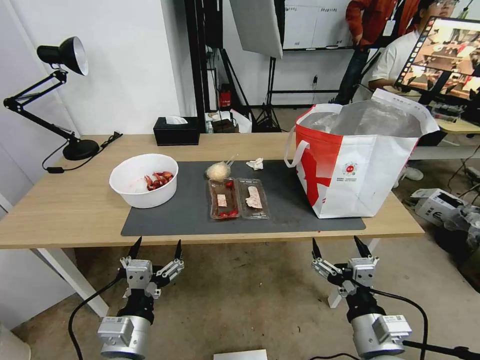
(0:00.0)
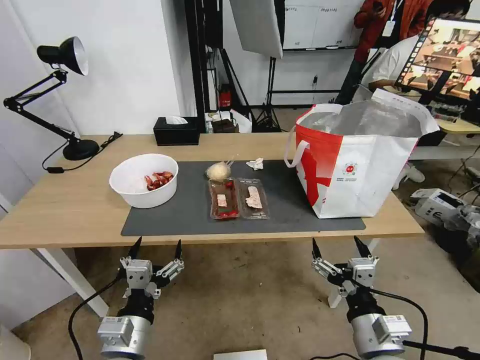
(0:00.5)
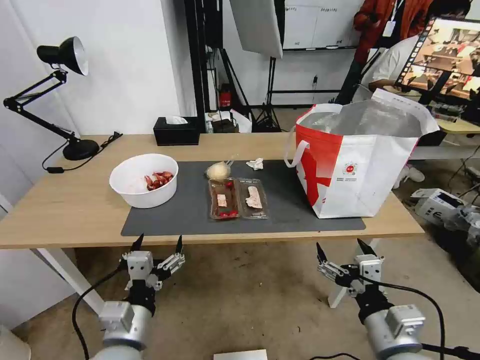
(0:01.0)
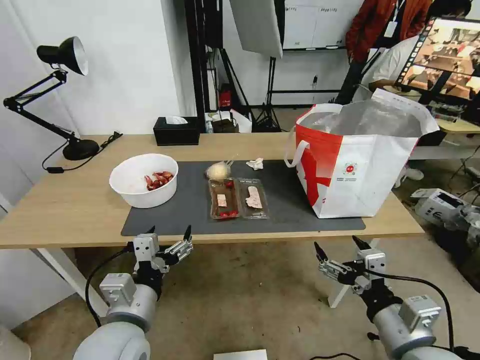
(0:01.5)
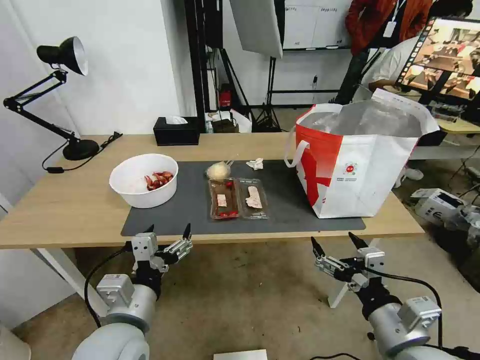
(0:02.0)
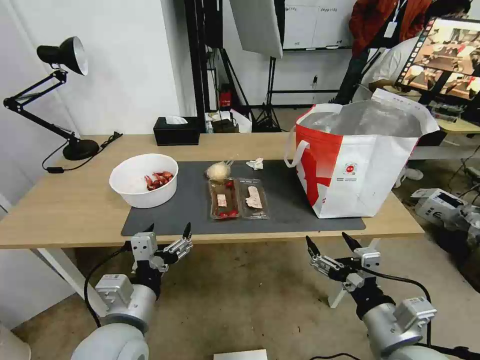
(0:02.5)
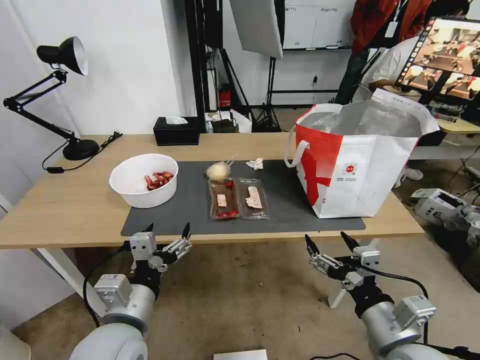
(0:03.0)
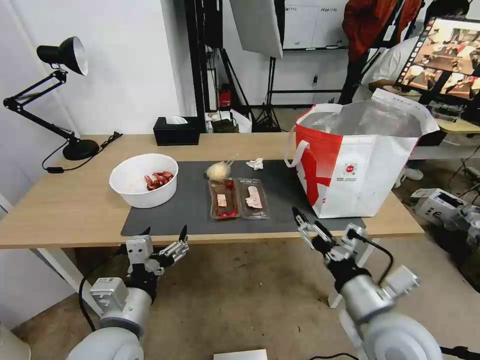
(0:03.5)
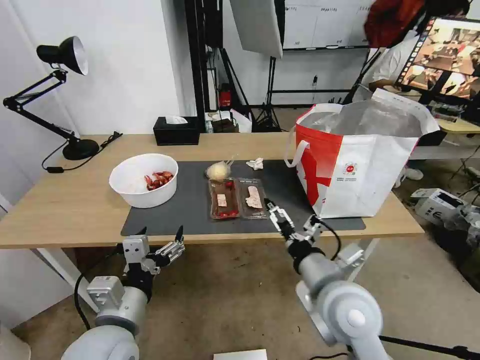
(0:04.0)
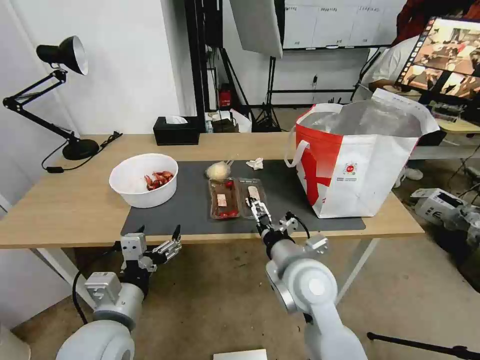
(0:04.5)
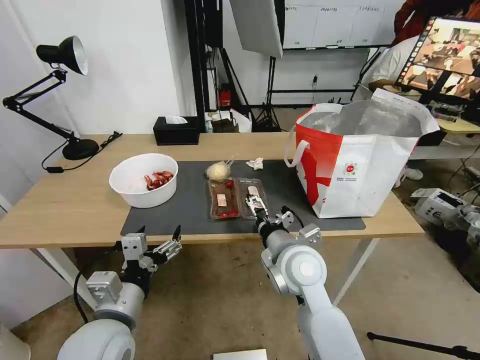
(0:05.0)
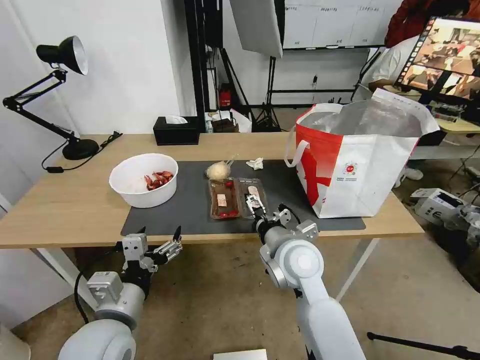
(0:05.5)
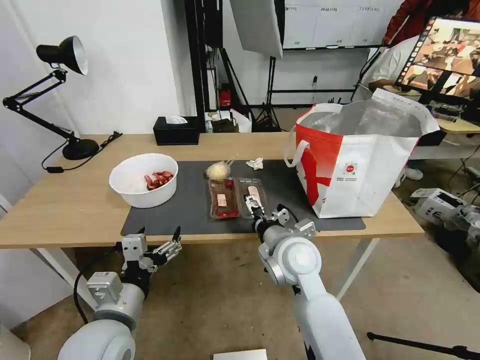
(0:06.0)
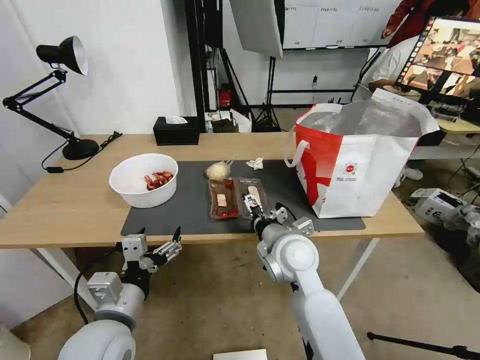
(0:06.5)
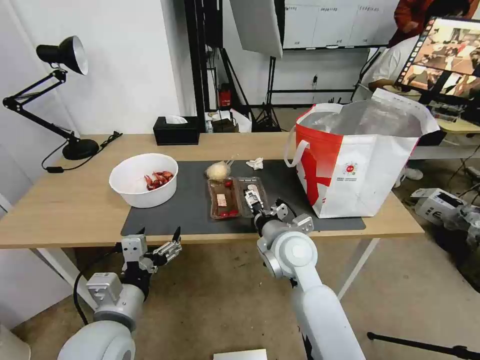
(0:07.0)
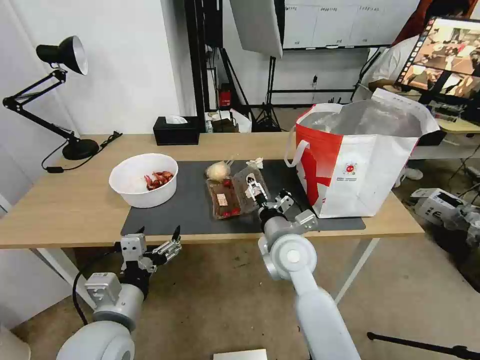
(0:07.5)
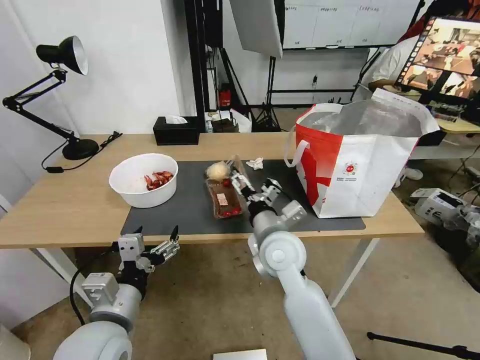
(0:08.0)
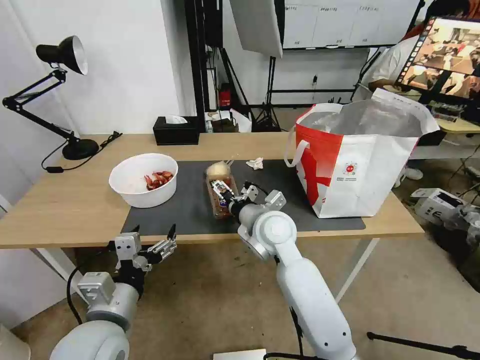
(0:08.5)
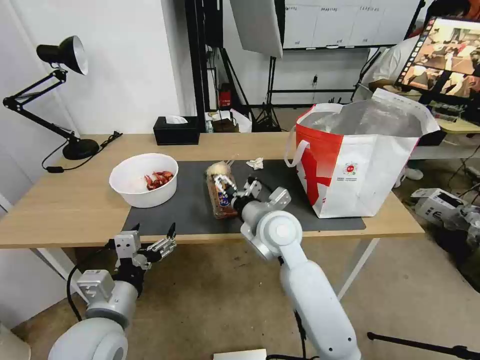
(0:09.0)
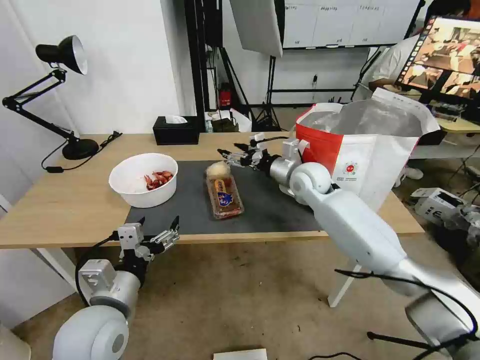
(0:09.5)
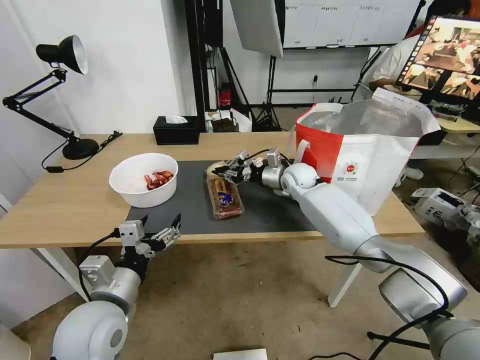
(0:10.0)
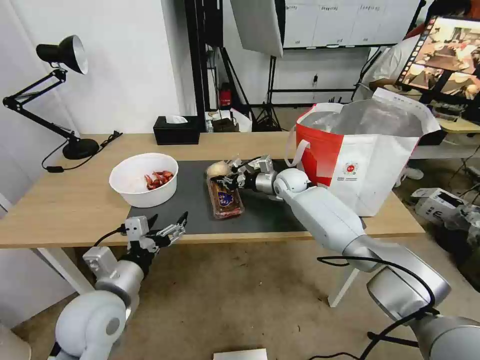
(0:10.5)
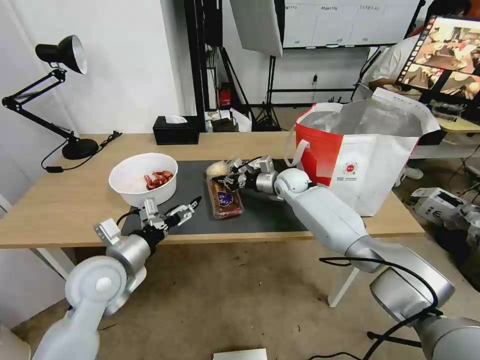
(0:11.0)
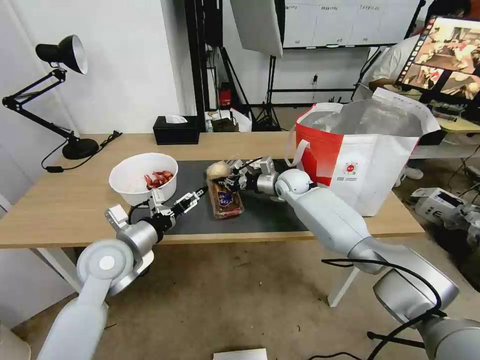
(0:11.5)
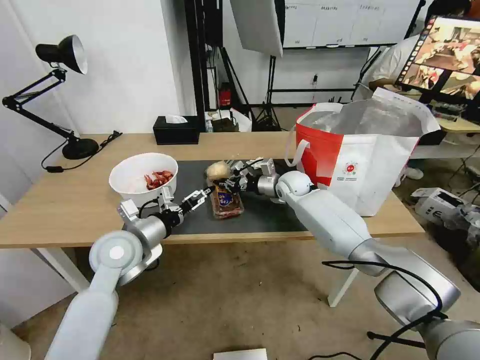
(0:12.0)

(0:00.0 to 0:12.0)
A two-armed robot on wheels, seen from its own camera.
Task of the whole recording: Pick up the trash from the table and place it into the takeout bag.
0:02.0 - 0:04.0: The right gripper moves to the left and forward, some 15 cm.
0:04.0 - 0:06.0: The right gripper goes some 10 cm forward and to the left.
0:08.0 - 0:10.0: The right gripper heads forward, covering about 25 cm, and closes up.
0:10.0 - 0:12.0: The left gripper moves forward, approximately 15 cm.

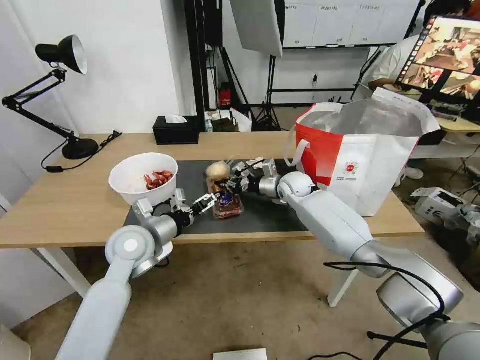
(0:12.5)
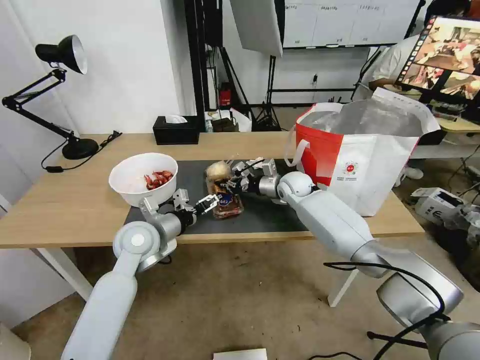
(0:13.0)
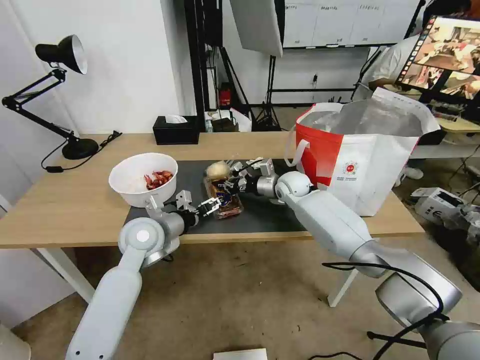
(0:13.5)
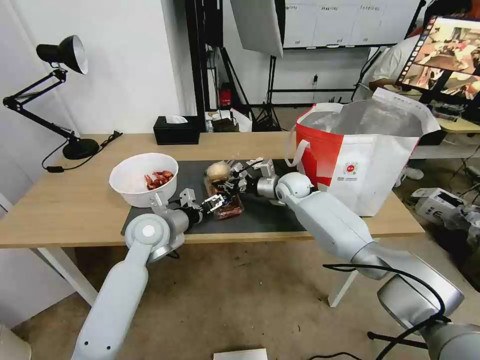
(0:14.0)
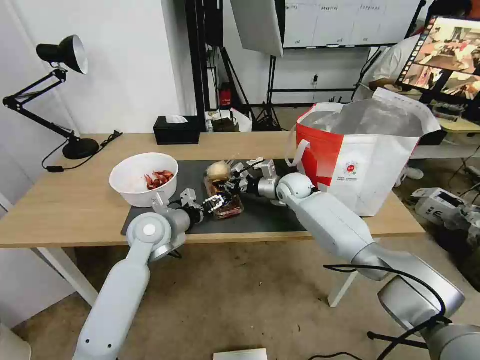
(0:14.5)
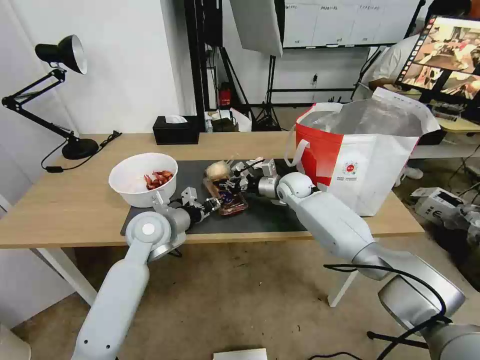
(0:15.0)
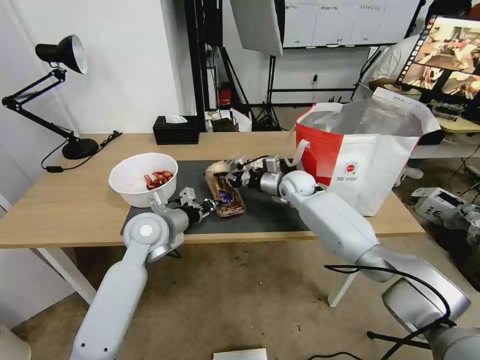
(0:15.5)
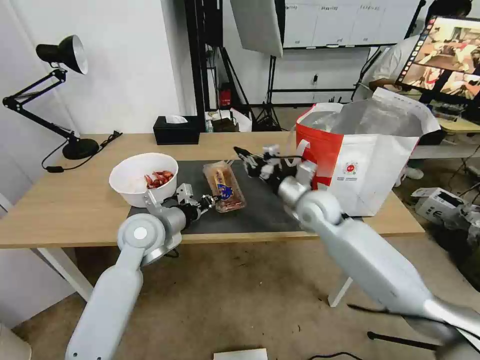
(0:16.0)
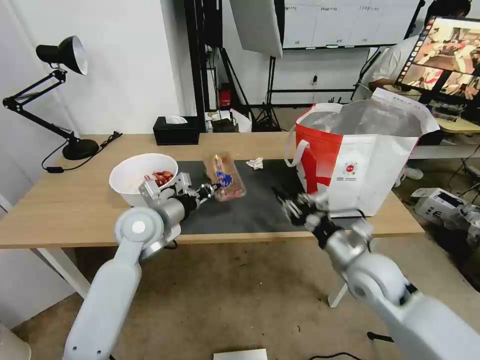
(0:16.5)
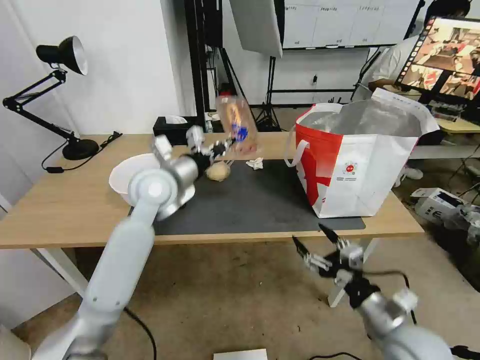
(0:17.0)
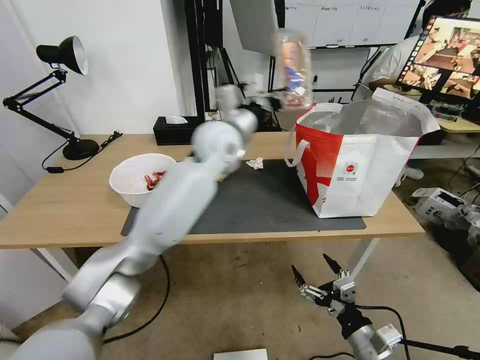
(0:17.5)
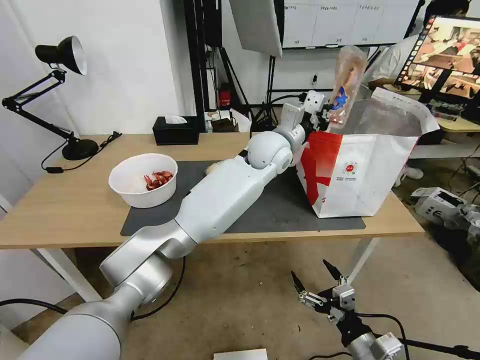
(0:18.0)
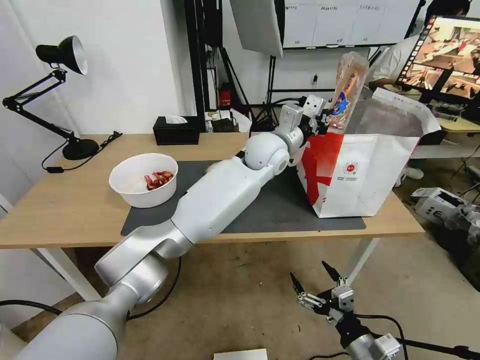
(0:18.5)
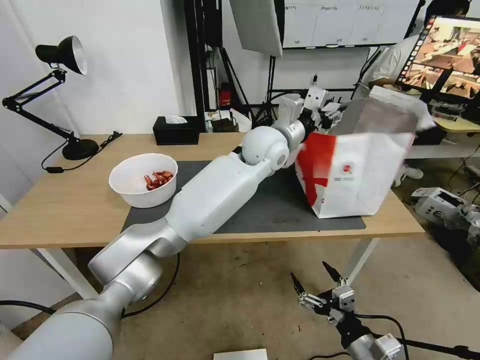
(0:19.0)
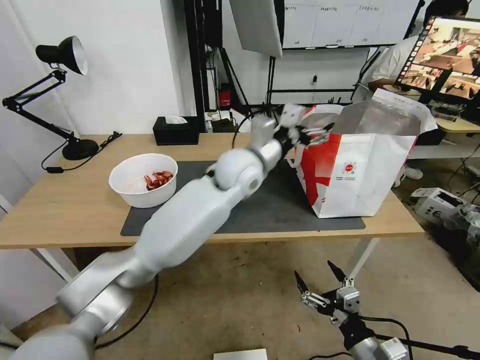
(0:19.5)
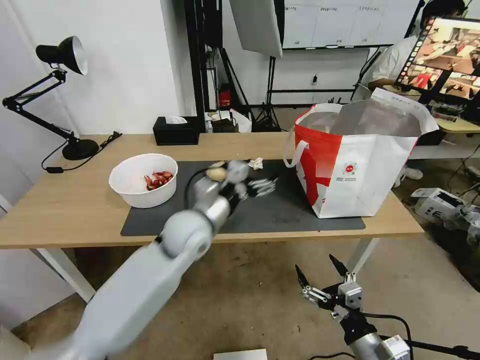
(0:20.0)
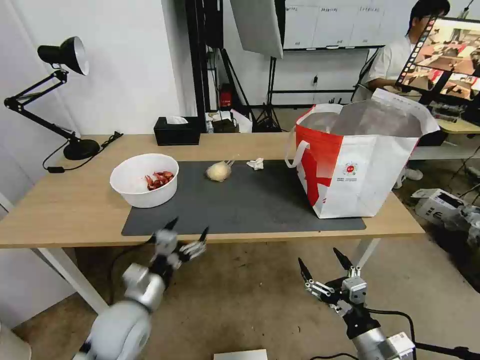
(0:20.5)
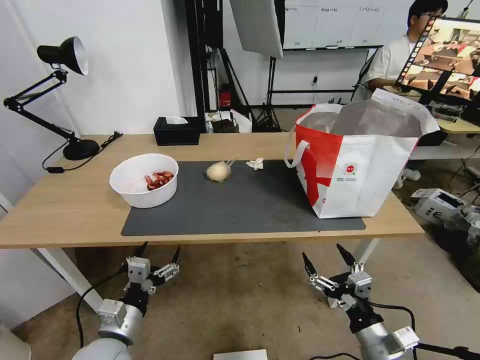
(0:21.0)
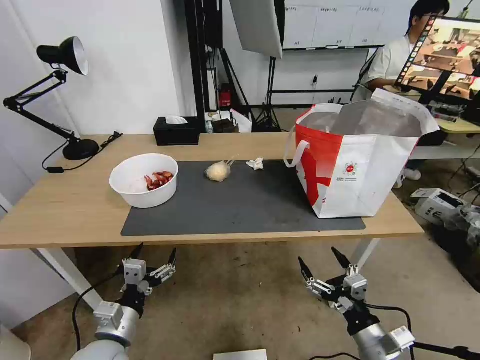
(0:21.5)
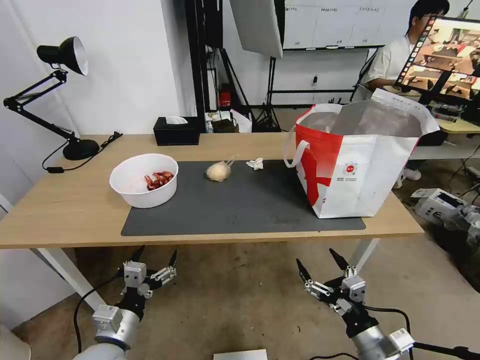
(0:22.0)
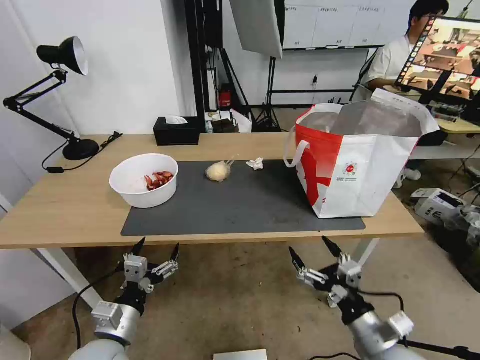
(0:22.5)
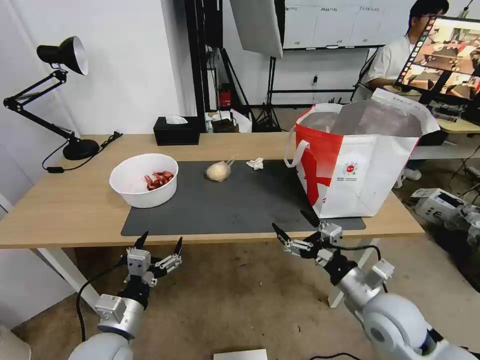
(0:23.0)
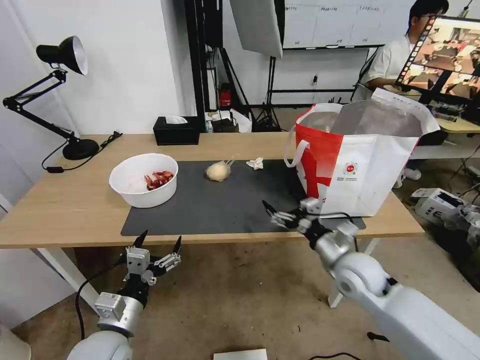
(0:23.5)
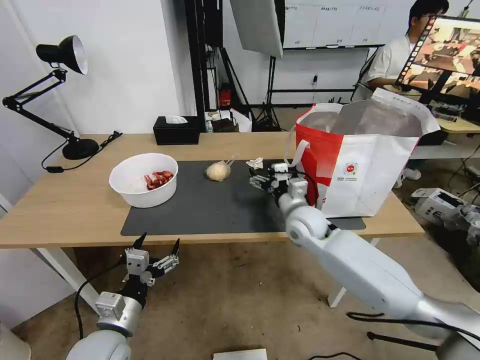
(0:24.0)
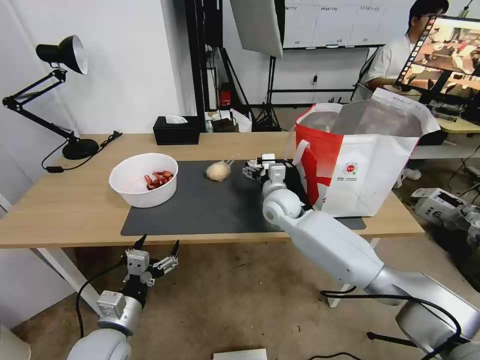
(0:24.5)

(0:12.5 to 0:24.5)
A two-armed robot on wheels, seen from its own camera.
Task of the whole recording: Pick up the trash from the table and place it into the takeout bag.
0:12.5 - 0:14.5: The grippers move only a little.
0:14.5 - 0:16.5: The left gripper closes, while the right gripper travels backward by some 25 cm.
0:16.5 - 0:18.5: The right gripper travels backward and downward by about 20 cm, and opens. The left gripper goes about 30 cm to the right and forward.
0:18.5 - 0:20.5: The left gripper heads backward, to the left and downward, covering approximately 50 cm, and opens.
0:20.5 - 0:22.5: The left gripper is displaced backward by approximately 5 cm.
0:22.5 - 0:24.5: The right gripper shifts approximately 40 cm forward and to the left.

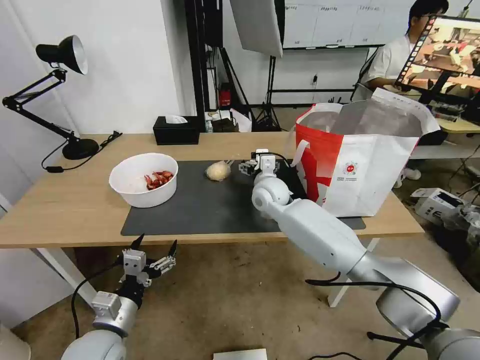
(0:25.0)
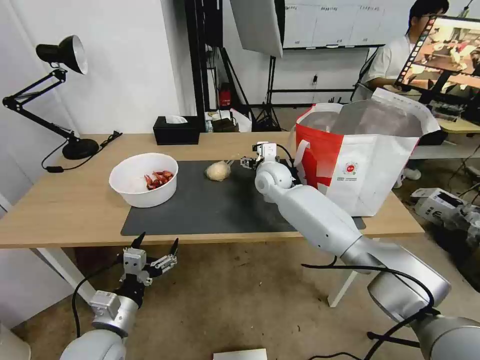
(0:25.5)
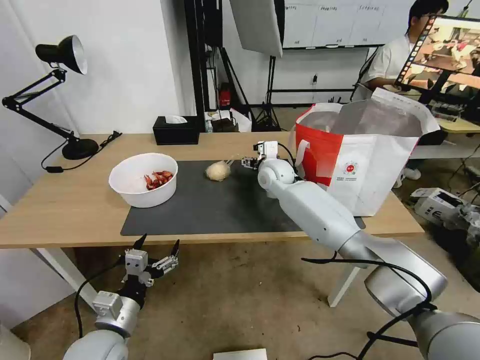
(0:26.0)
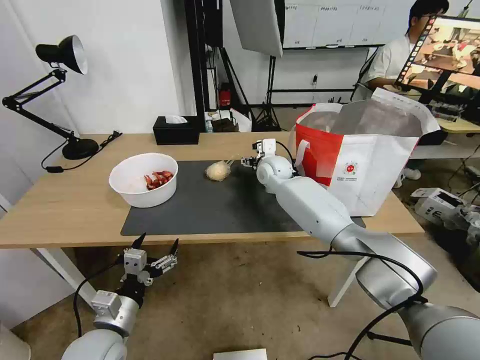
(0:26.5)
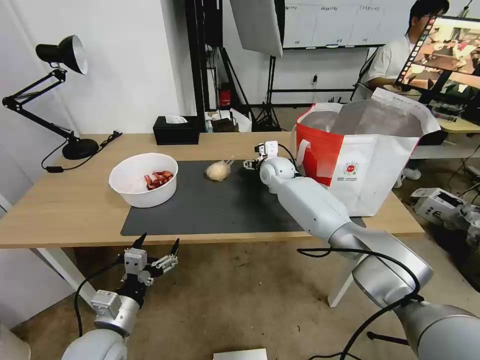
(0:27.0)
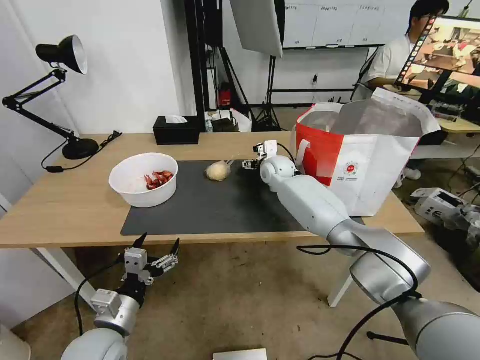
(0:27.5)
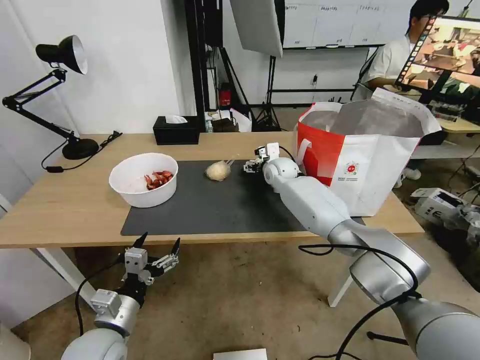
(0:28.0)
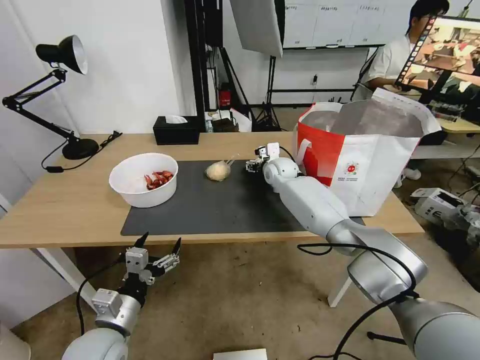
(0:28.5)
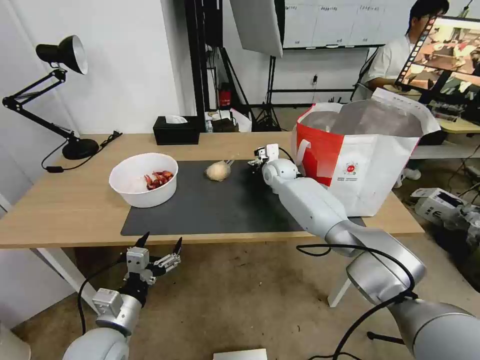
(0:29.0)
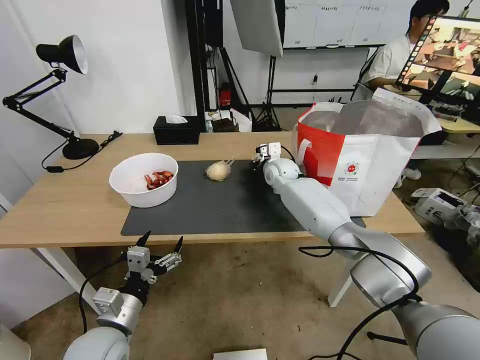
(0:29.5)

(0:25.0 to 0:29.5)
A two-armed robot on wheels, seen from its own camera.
Task of the whole recording: Pick up the trash from the table and place it into the takeout bag.
0:25.0 - 0:27.0: The right gripper goes about 10 cm forward.
0:27.0 - 0:29.5: The right gripper closes up.
